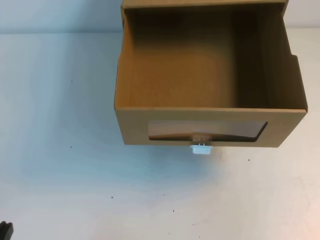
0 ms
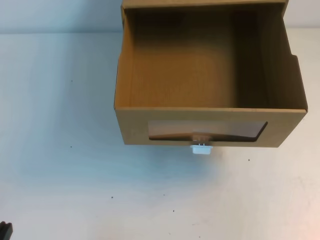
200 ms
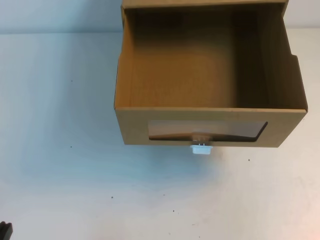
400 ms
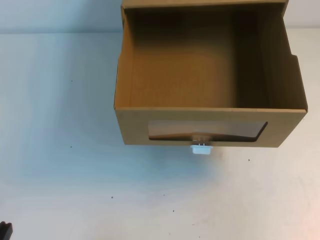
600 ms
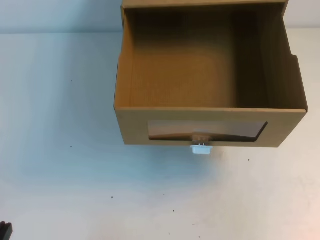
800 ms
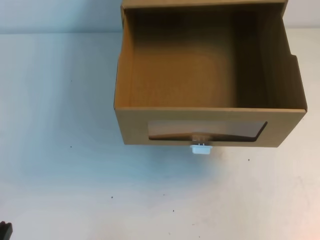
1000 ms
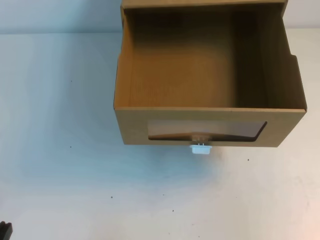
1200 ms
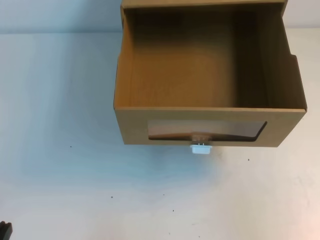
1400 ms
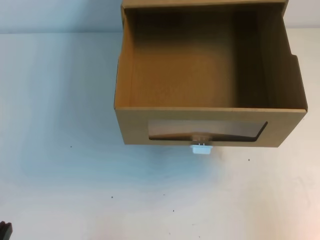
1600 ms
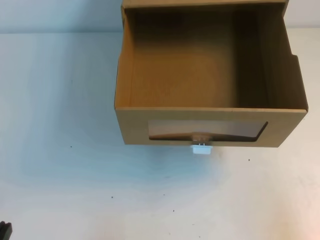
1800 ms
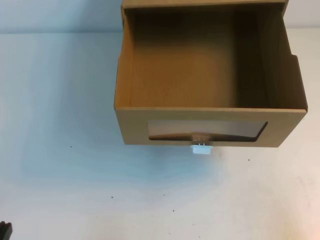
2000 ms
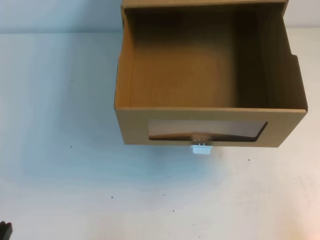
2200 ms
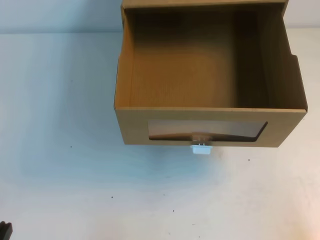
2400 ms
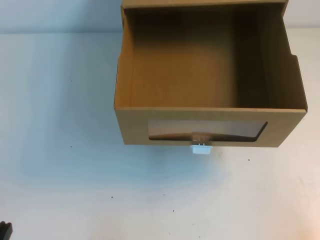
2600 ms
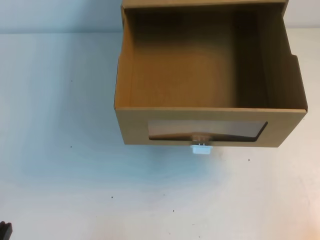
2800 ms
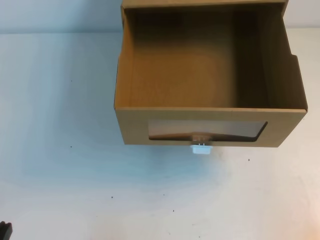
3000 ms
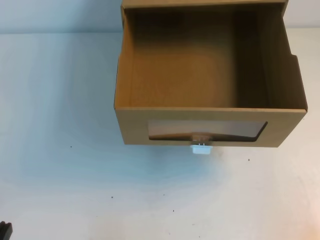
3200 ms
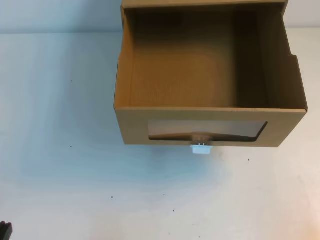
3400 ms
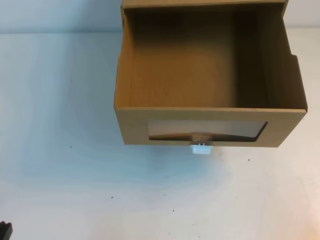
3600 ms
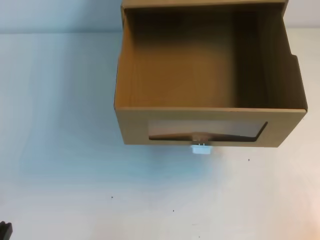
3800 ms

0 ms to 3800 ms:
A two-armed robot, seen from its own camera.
Task of the whole recording: open the shoebox on the table.
2600 ms to 3800 ms: Both grippers stay about where they are.

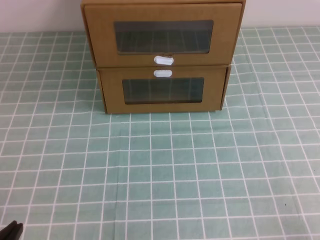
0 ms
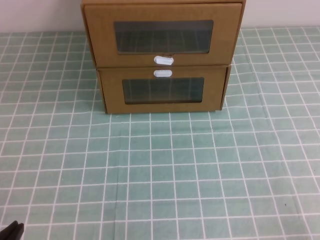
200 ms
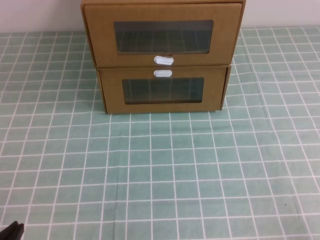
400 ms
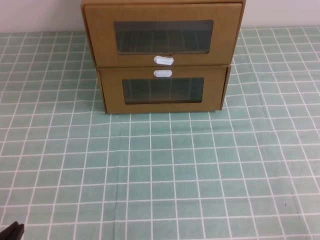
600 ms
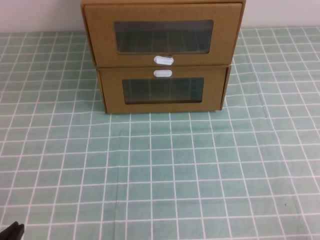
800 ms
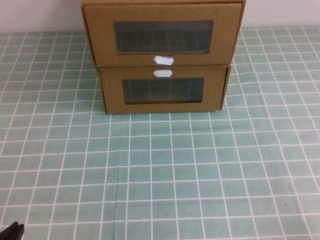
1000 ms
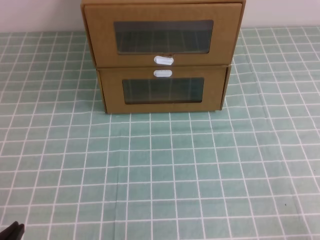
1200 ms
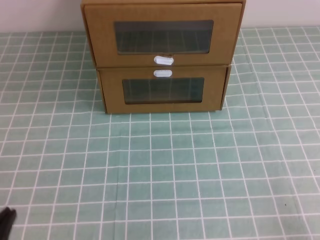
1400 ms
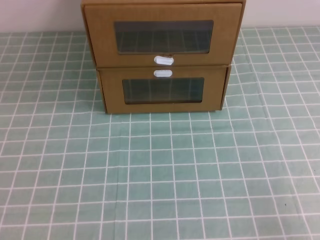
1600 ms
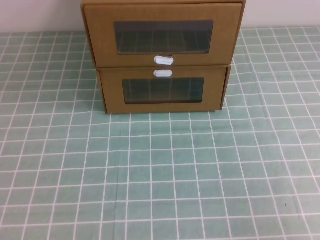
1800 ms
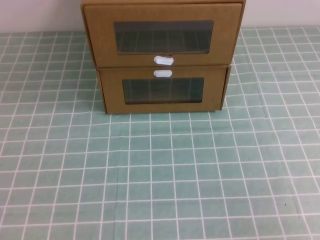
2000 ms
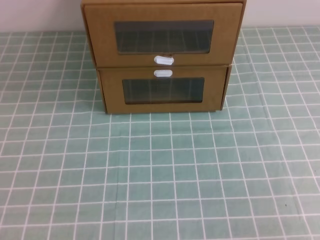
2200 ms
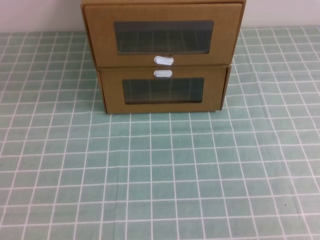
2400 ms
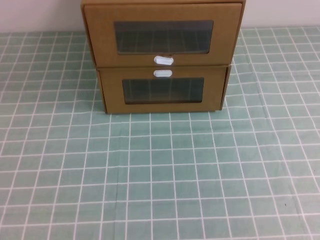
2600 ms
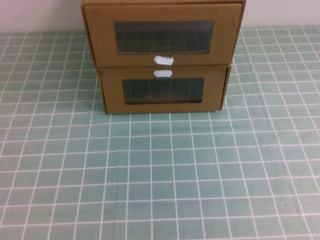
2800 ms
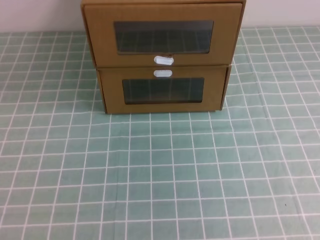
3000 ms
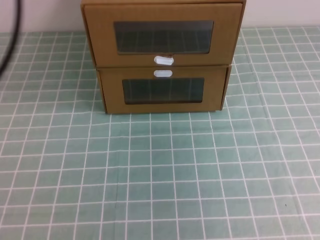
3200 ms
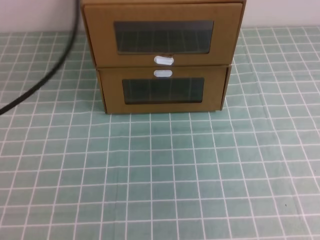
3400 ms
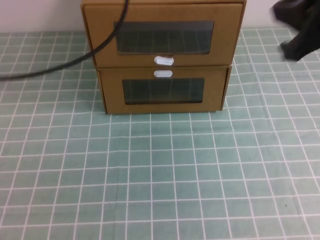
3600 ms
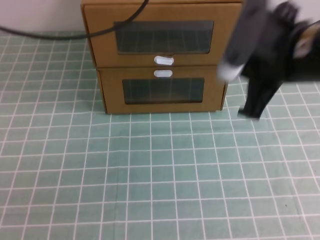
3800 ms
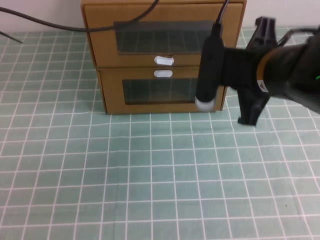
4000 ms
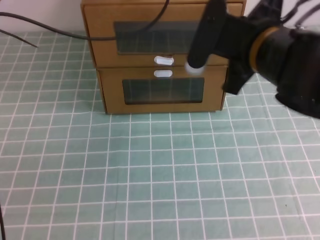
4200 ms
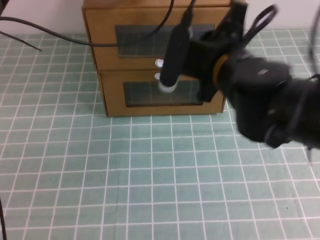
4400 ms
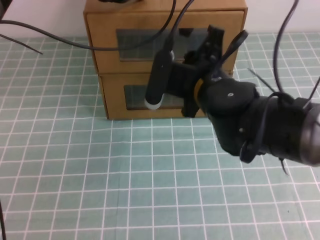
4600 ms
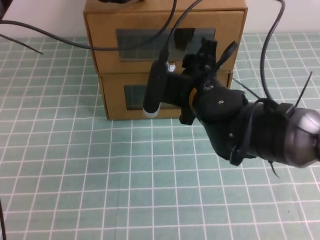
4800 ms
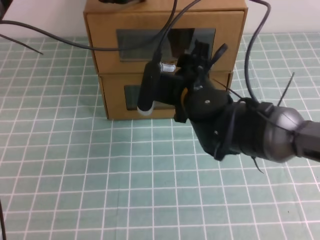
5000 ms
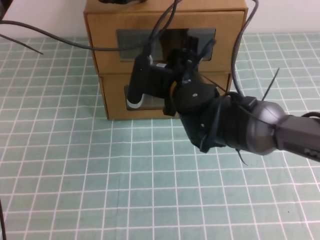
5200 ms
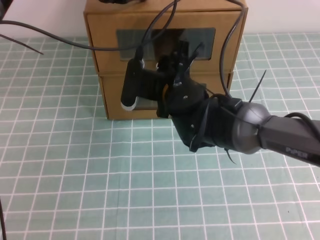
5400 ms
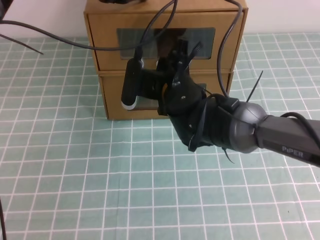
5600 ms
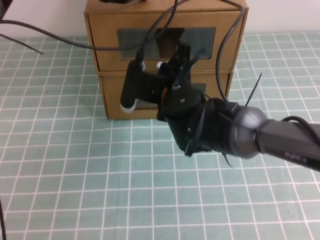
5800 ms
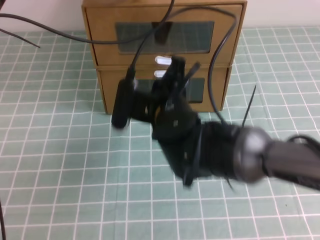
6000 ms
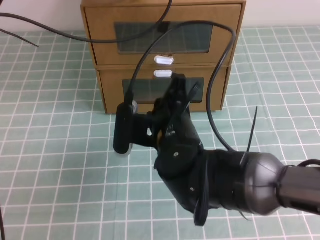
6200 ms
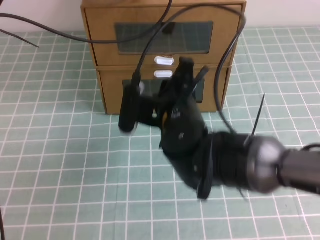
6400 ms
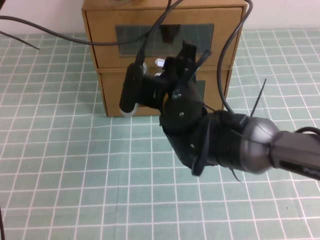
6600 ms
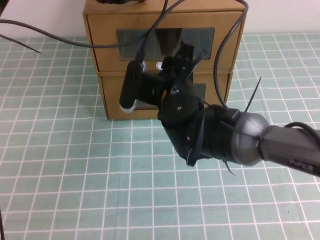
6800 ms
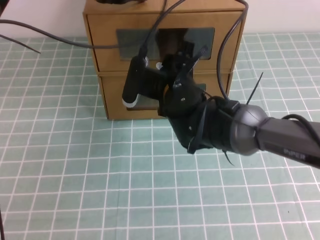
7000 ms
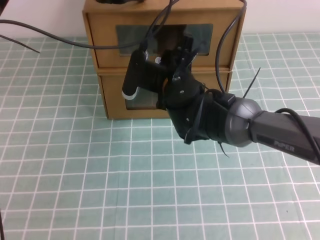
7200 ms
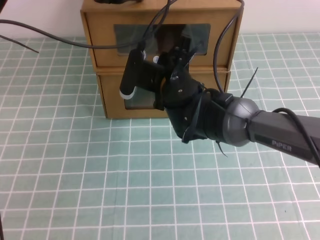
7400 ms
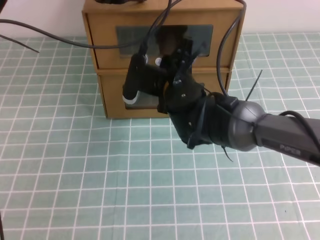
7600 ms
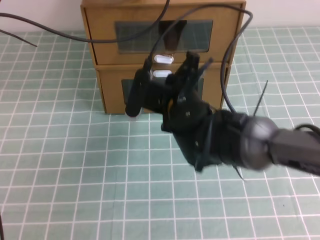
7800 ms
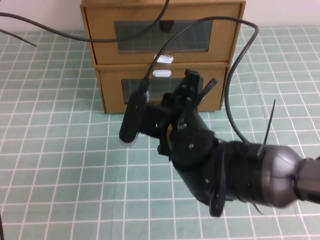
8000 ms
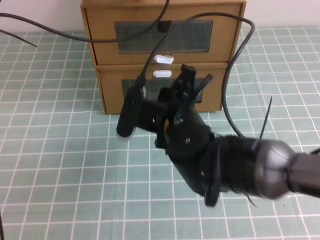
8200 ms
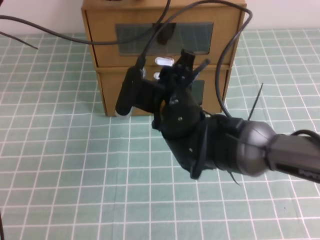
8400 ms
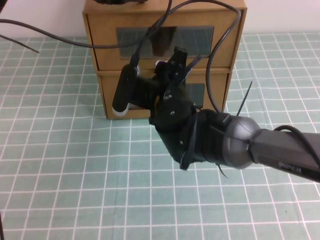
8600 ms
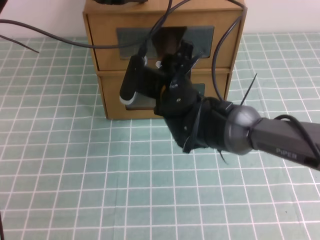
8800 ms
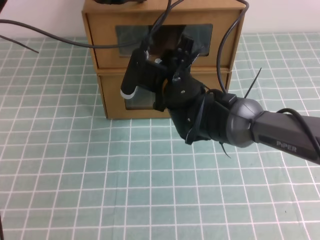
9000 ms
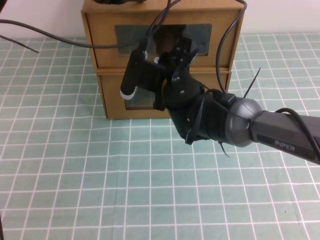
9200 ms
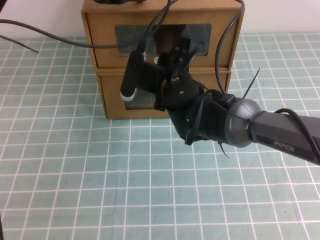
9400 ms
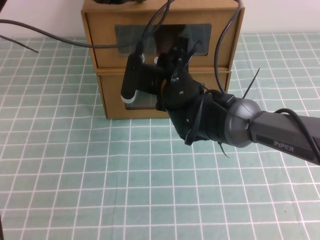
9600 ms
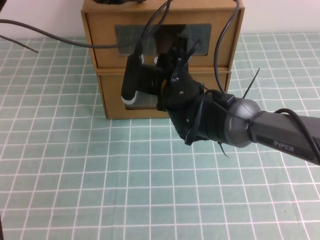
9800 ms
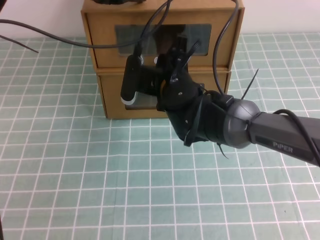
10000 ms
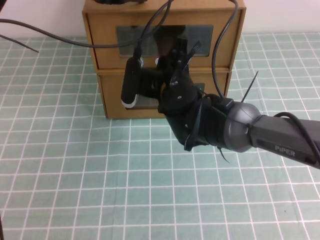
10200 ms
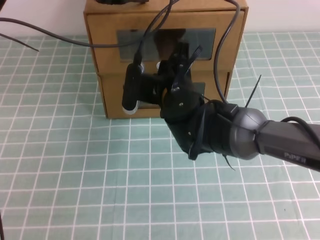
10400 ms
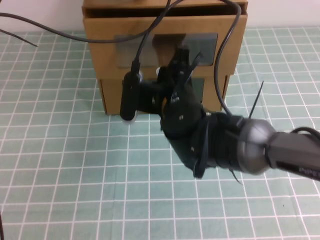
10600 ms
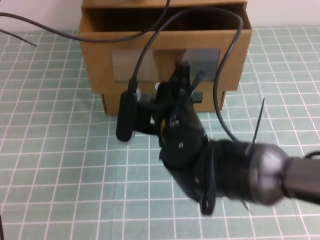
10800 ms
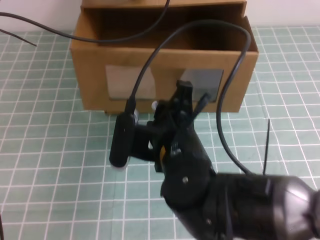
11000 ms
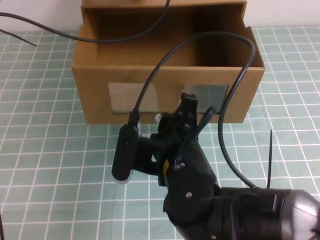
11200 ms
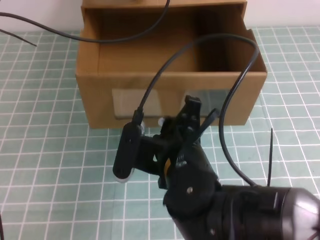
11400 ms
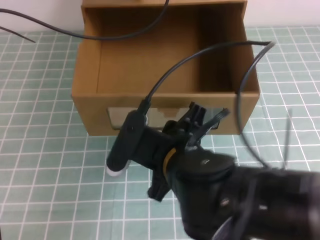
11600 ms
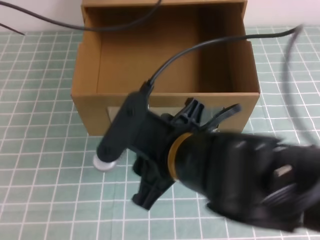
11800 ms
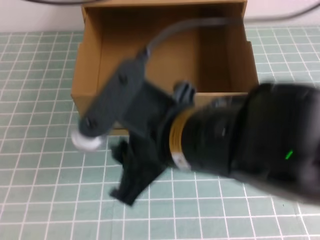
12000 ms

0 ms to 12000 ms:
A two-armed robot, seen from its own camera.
Task of the whole recording: open the shoebox on the cyan tablecloth.
3000 ms to 4400 ms: The left gripper moves forward and to the right, approximately 35 cm; the right gripper heads to the left, forward and downward, covering some 35 cm.
4400 ms to 6000 ms: The right gripper travels to the left and downward by some 10 cm, and opens, then closes again.
6000 ms to 7600 ms: The right gripper goes about 5 cm forward, and opens, then closes once more.
7600 ms to 9000 ms: The right gripper reaches roughly 10 cm backward, then returns, and opens up.
9000 ms to 10400 ms: The right gripper closes up.
10400 ms to 12000 ms: The left gripper is displaced upward and backward by roughly 10 cm. The right gripper heads backward and upward, covering about 20 cm, and opens.

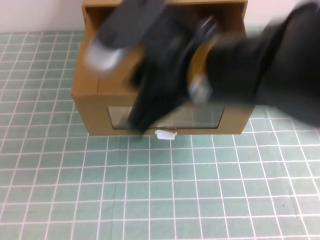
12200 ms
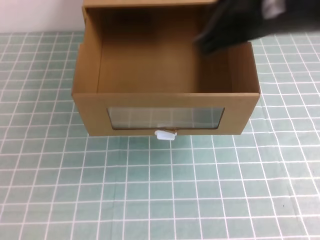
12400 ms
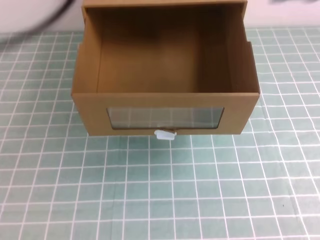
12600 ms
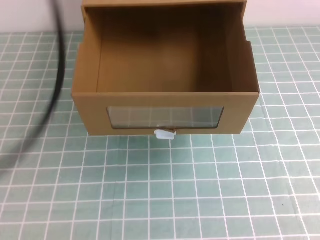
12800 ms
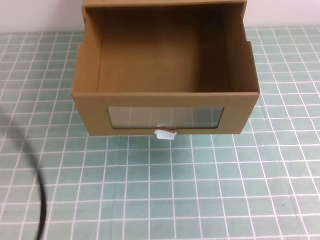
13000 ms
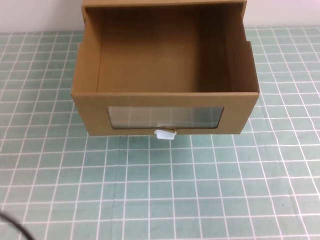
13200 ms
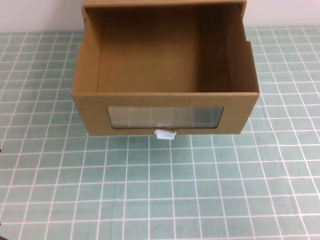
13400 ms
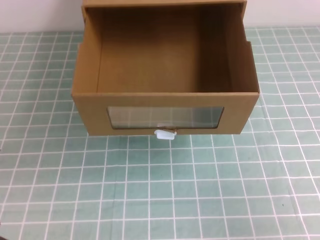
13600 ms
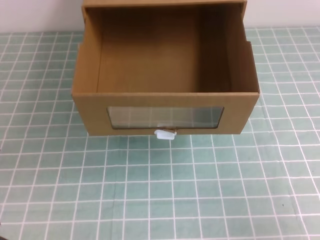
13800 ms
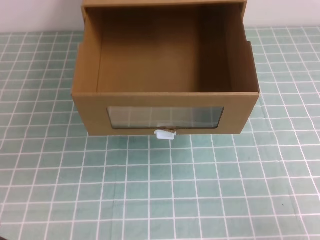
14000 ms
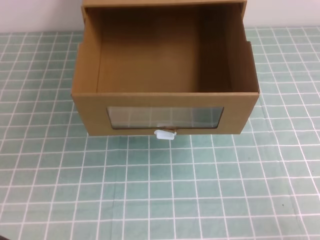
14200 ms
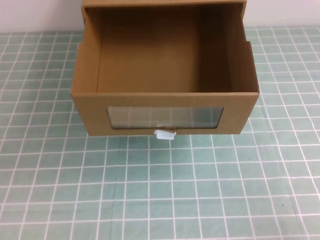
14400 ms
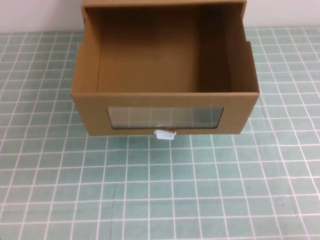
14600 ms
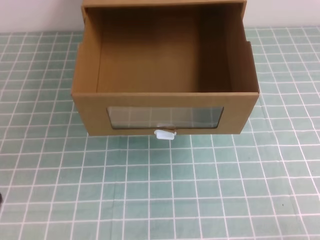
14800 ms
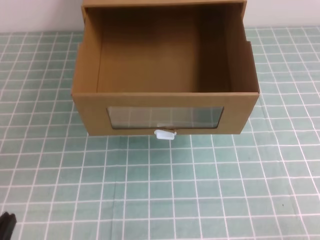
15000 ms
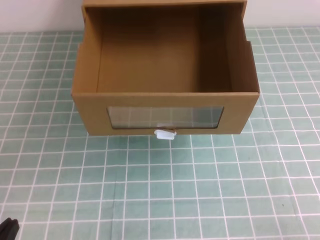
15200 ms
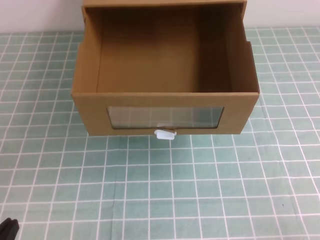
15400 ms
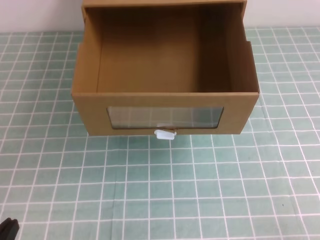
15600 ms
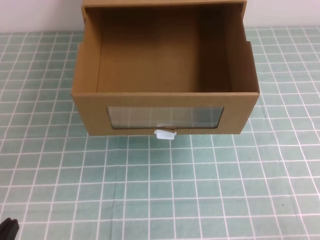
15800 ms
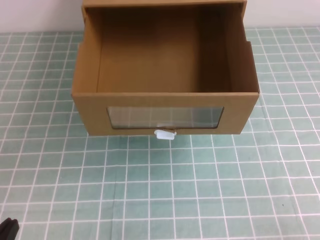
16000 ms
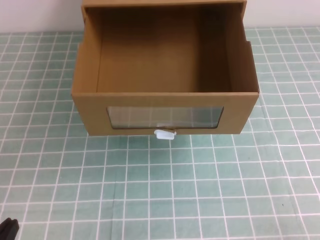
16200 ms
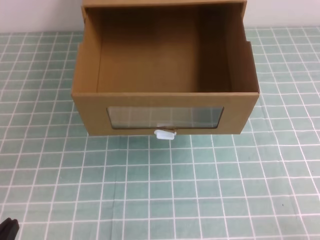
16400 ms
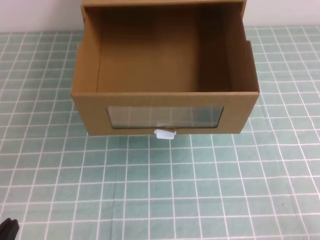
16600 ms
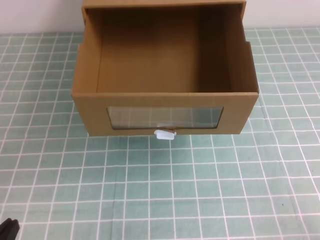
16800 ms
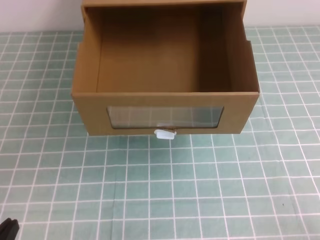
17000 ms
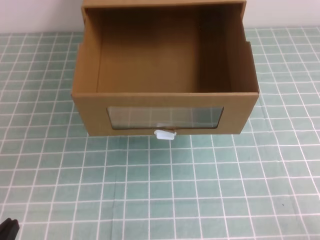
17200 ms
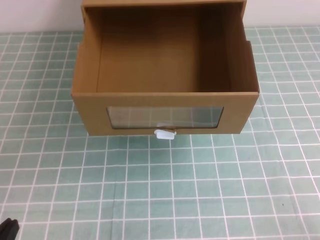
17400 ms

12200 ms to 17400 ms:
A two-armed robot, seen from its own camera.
Task of the whole recording: open the shoebox on the cyan tablecloth.
Step, 12200 ms to 17400 ms: Open the shoe box.
12200 ms to 14000 ms: The right gripper shifts approximately 35 cm to the right, downward and backward, and closes. The left gripper moves backward and downward, roughly 30 cm.

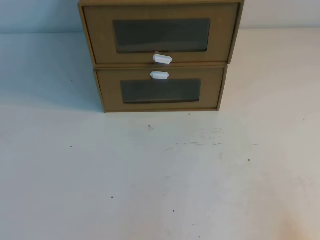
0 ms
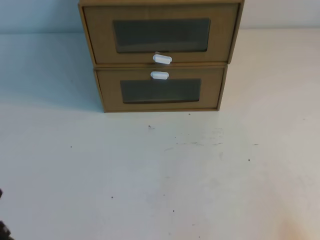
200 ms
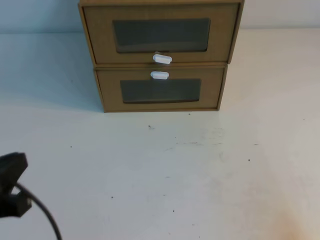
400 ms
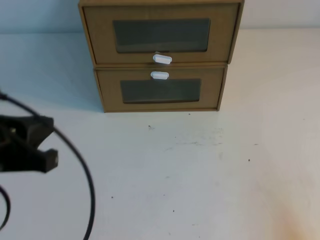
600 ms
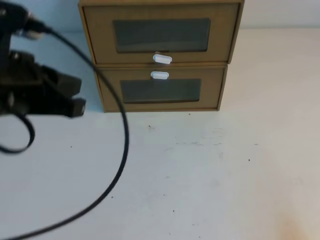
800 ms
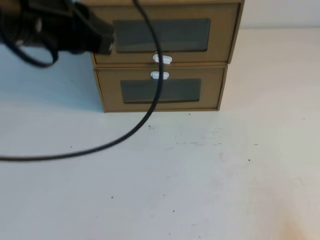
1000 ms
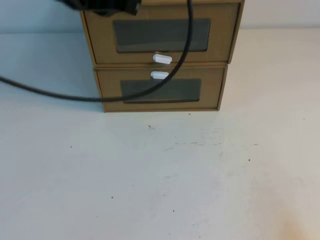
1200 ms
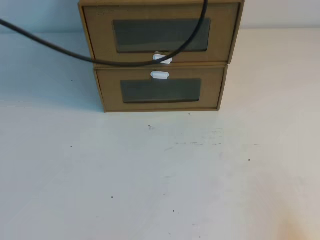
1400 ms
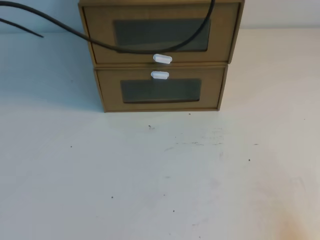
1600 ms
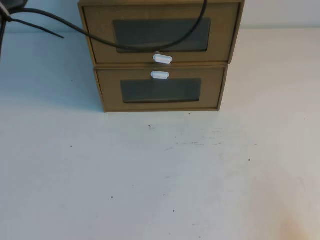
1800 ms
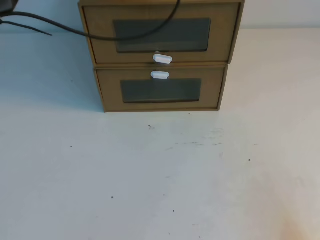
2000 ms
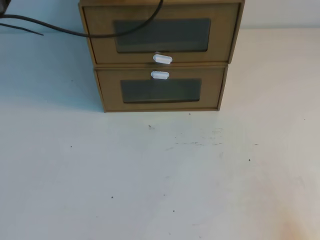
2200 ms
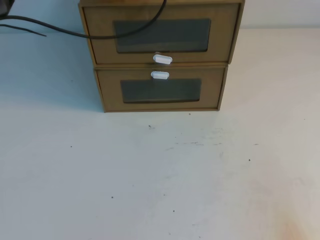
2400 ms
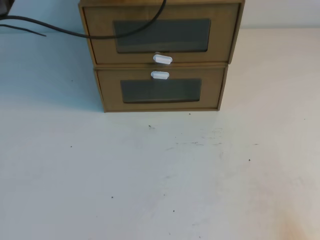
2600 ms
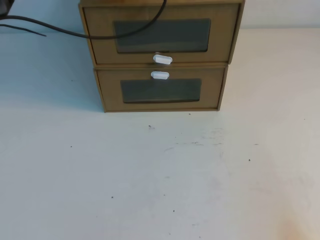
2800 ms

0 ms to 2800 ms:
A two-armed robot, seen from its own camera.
Task of the whole recording: open the shoebox on the table.
0 ms to 1400 ms: The left gripper heads forward, upward and to the right, covering some 40 cm.
1400 ms to 2800 ms: The left gripper is displaced forward and downward by about 15 cm.
